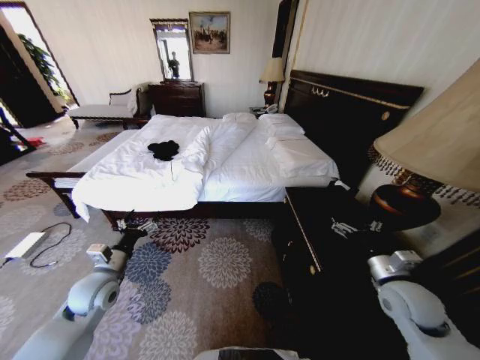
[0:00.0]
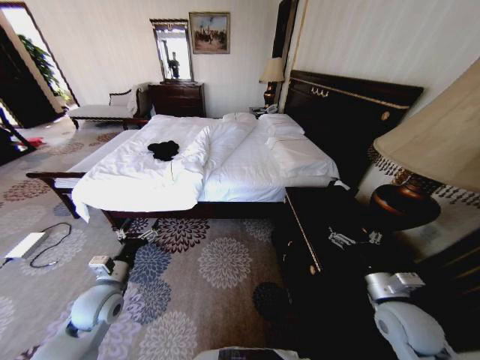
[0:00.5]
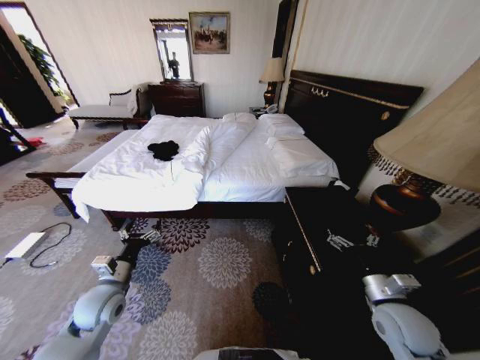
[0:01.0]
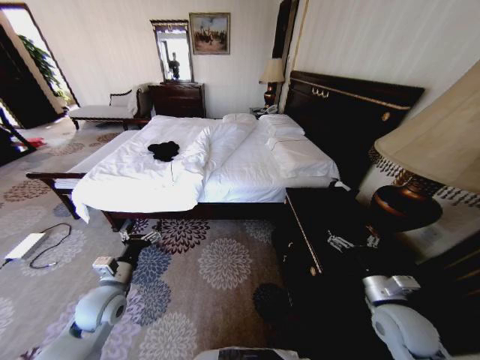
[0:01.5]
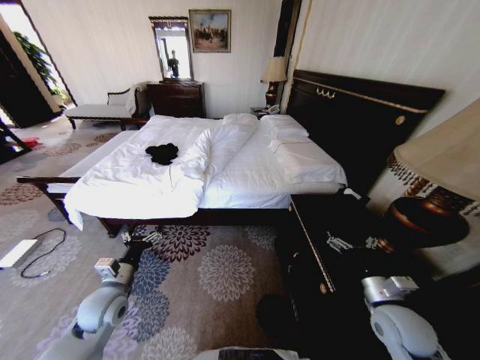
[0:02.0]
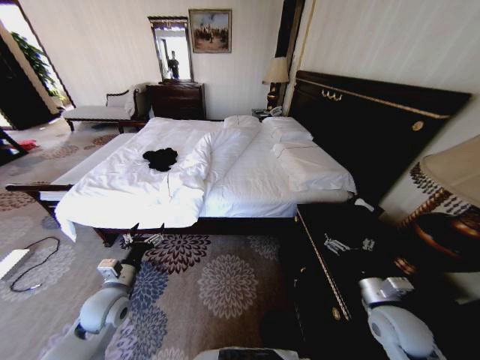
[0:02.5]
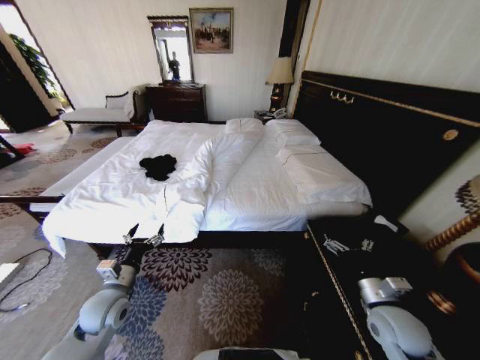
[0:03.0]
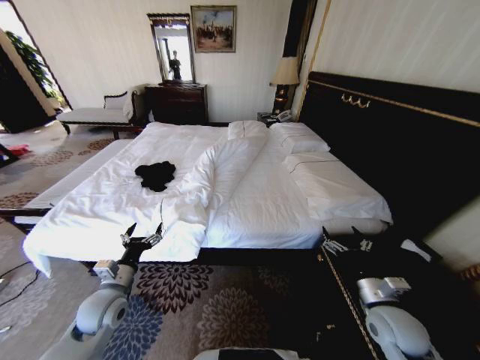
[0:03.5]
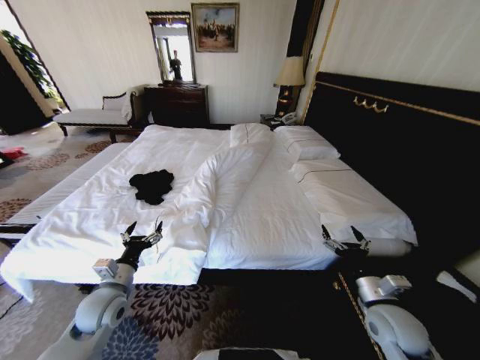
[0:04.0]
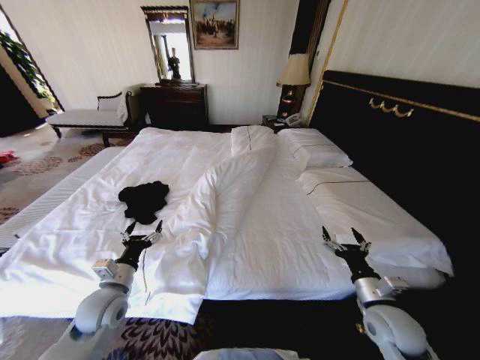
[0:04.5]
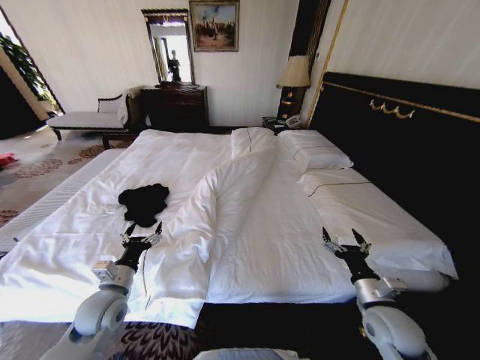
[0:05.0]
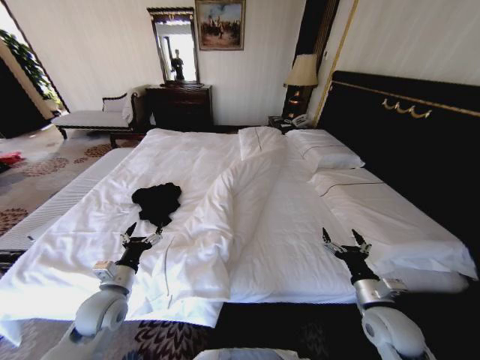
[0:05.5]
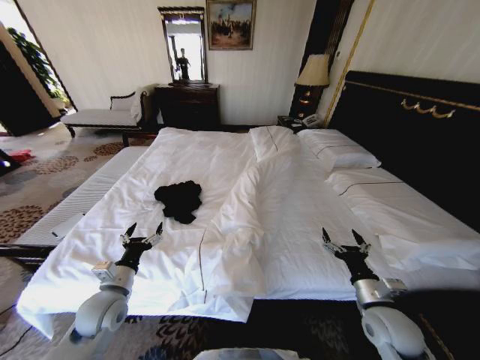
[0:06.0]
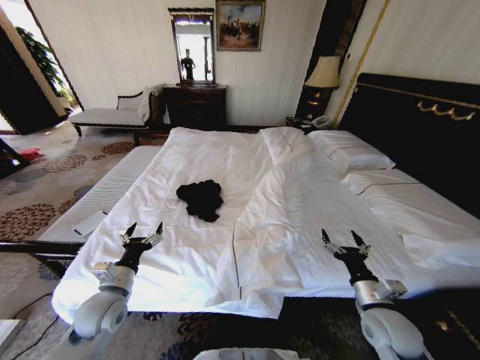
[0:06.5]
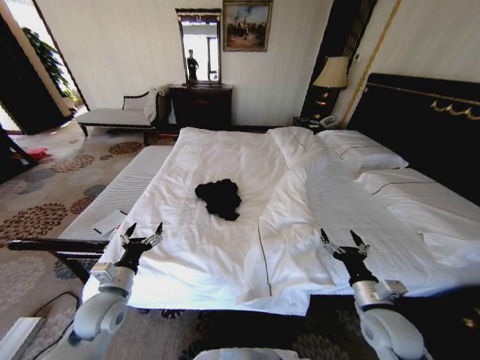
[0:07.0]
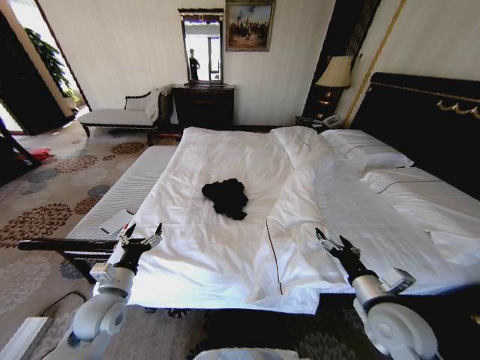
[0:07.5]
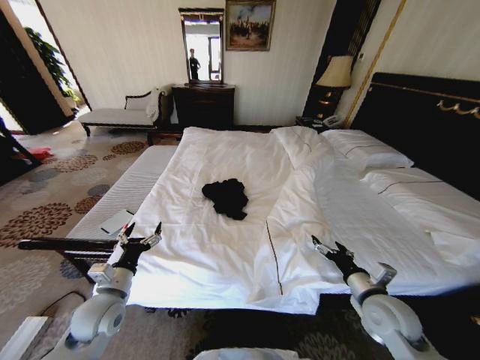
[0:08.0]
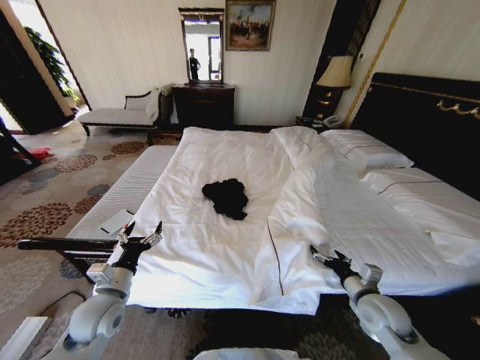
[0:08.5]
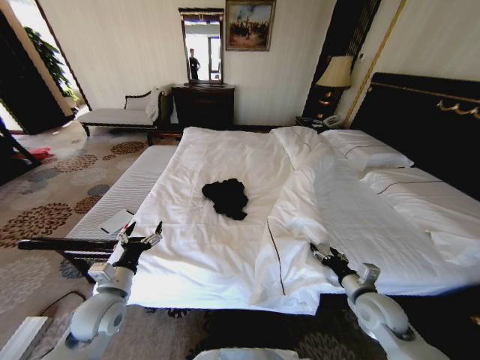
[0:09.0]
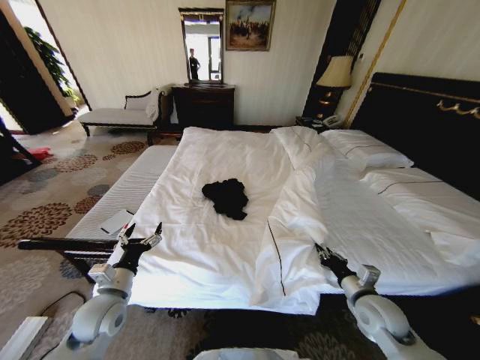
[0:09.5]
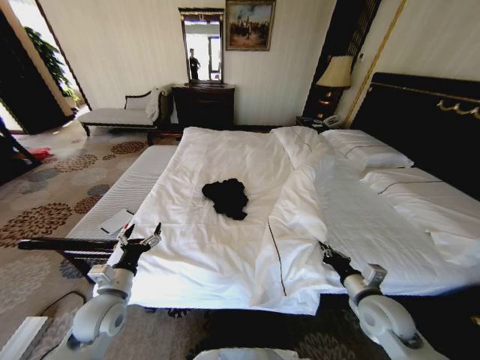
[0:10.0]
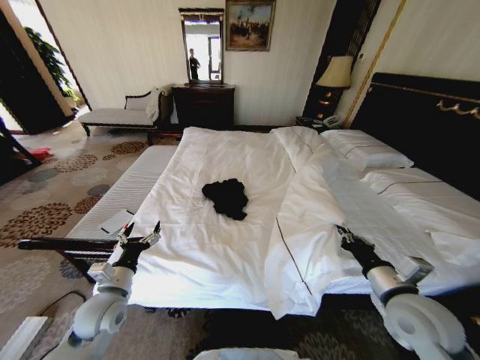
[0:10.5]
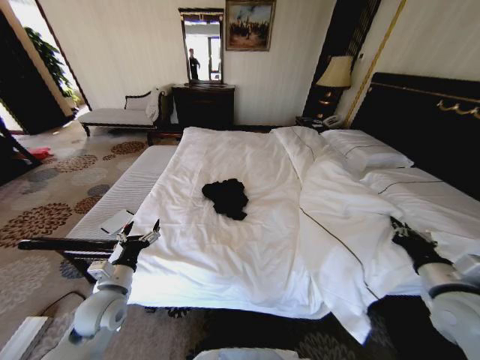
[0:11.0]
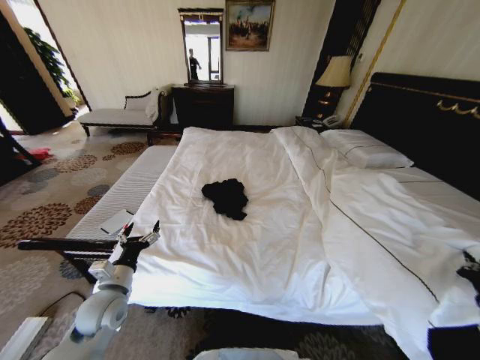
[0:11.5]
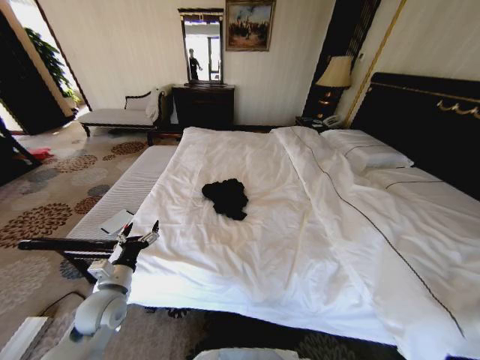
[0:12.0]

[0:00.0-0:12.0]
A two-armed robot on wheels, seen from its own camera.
Task of the whole recording: Fold the clothes on the bed.
0:08.0 to 0:10.0: The right gripper closes its fingers.
0:10.0 to 0:12.0: The right gripper moves to the right and backward, about 30 cm.

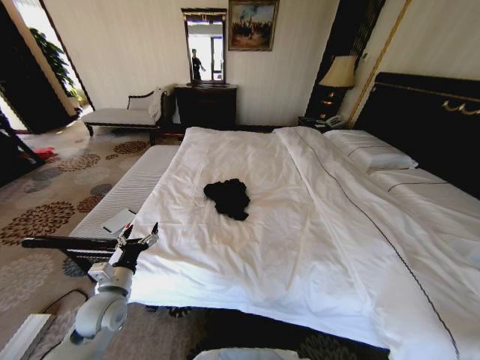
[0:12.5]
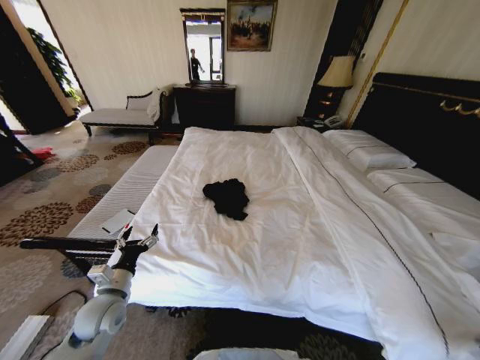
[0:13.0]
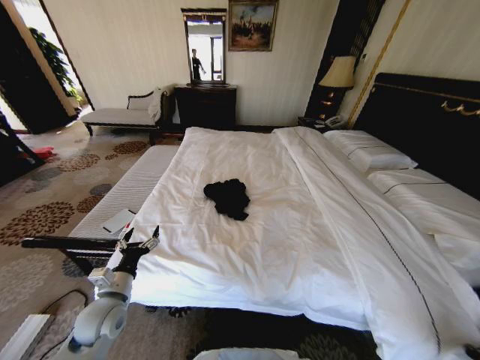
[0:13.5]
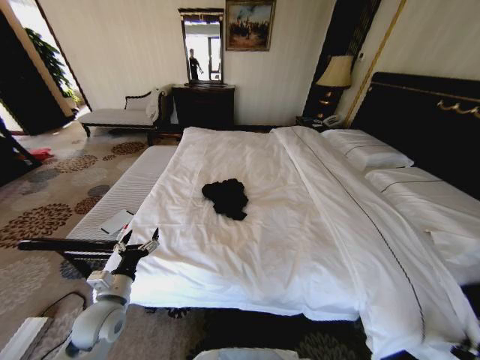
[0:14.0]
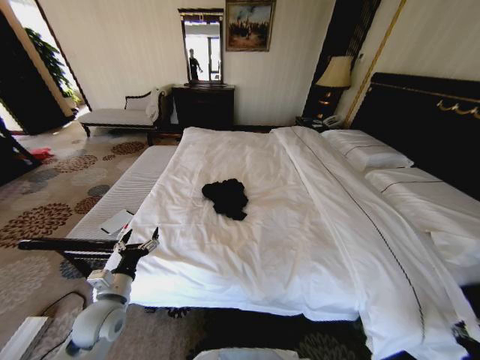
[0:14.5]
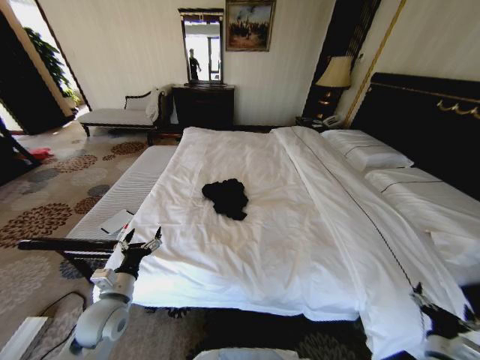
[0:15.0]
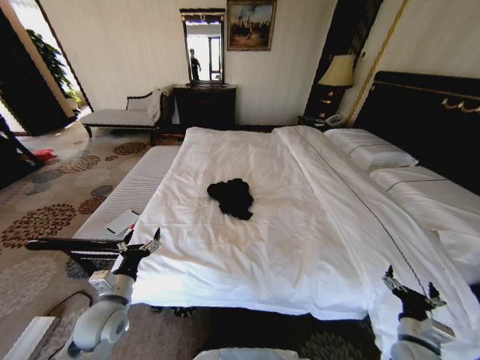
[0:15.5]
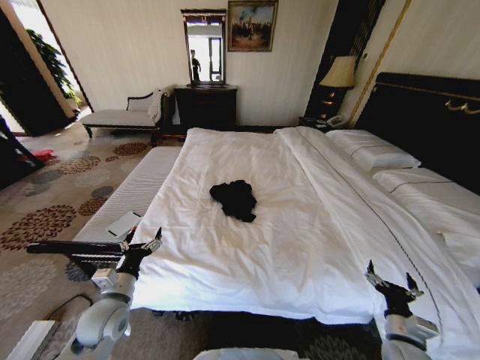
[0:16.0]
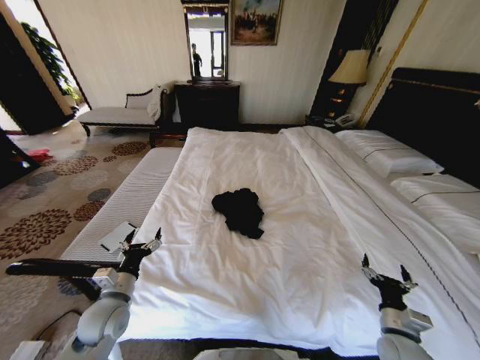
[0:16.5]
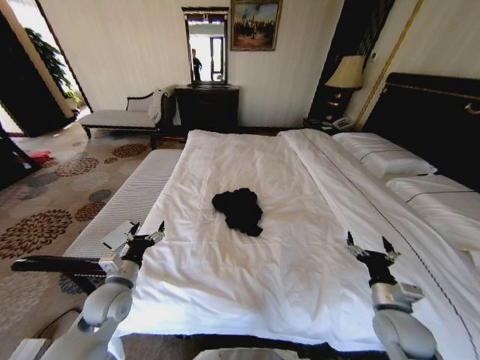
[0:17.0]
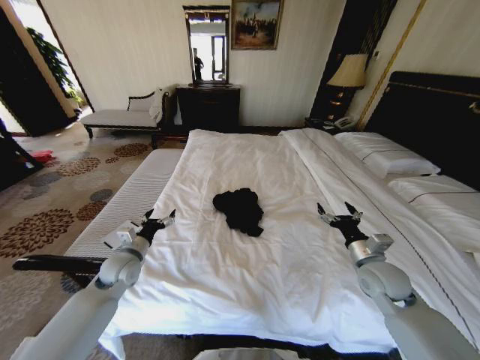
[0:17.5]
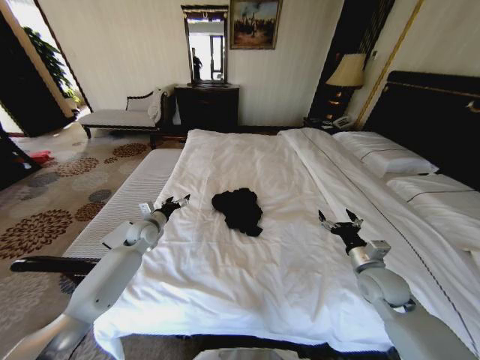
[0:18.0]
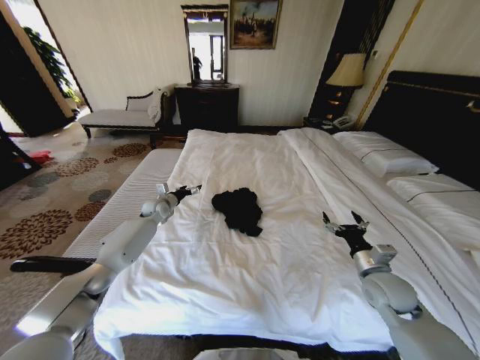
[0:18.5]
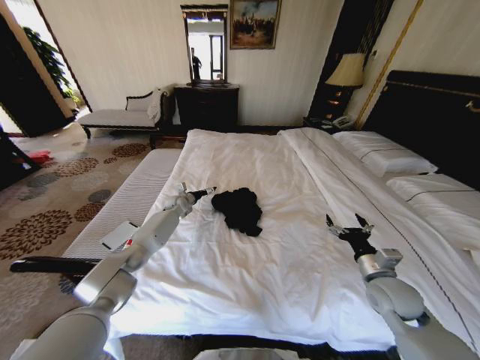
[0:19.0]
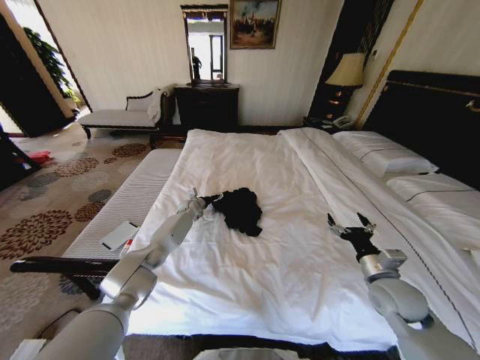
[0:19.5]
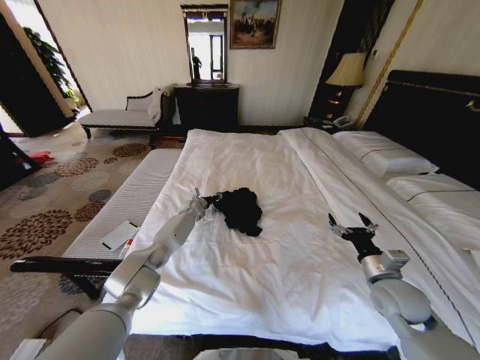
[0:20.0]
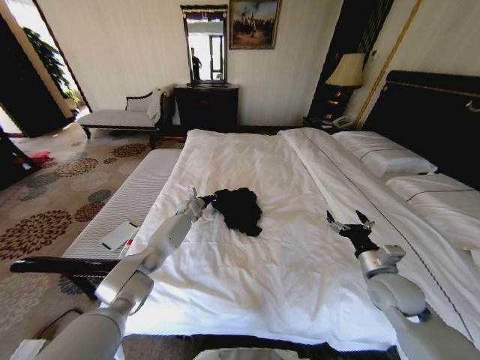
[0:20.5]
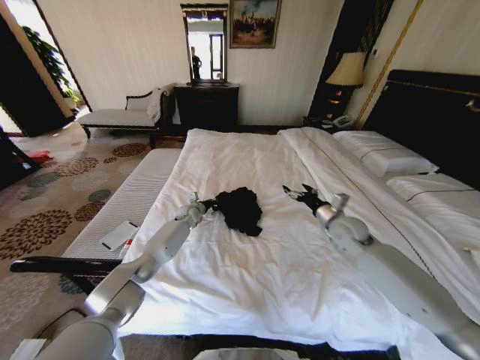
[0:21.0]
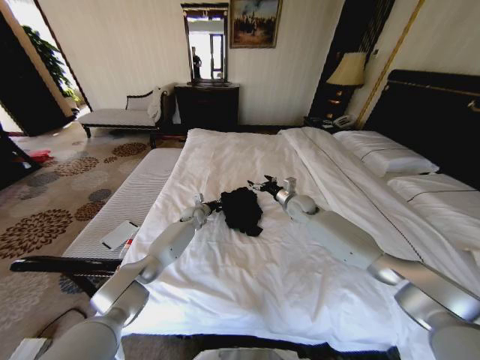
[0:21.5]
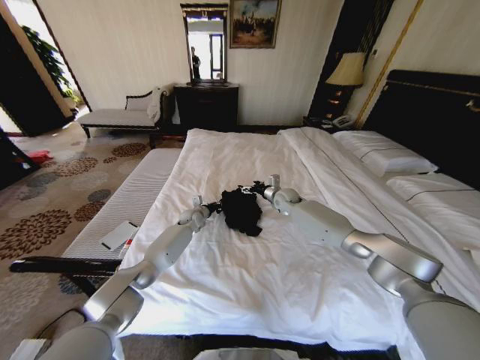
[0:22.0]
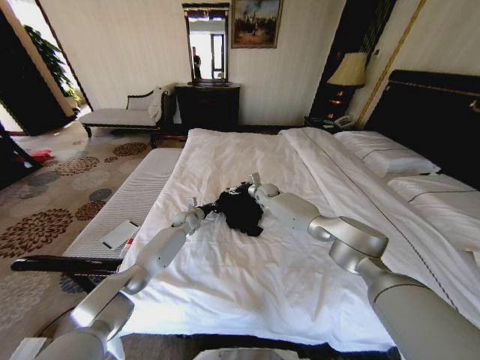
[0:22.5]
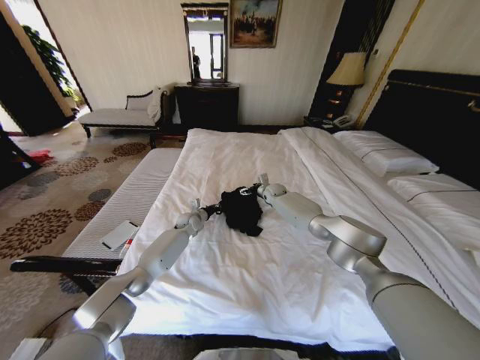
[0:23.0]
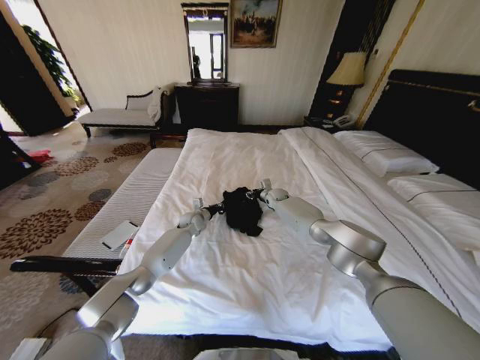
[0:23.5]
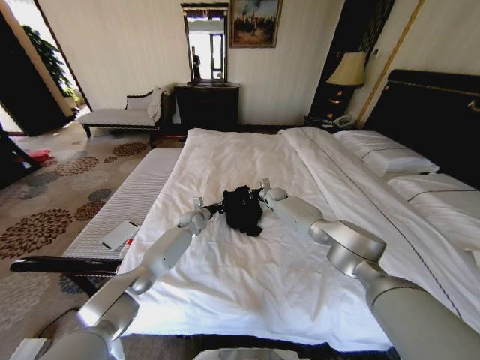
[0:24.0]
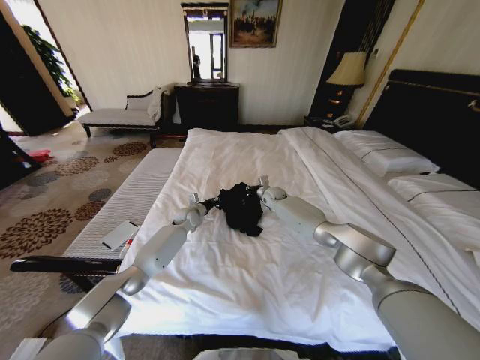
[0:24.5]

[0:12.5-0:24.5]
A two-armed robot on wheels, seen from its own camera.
Task of the whole recording: Fold the clothes on the bed.
0:12.5 to 0:14.5: The right gripper moves downward, about 10 cm, and opens.
0:14.5 to 0:16.5: The right gripper is displaced to the left, forward and upward by some 20 cm.
0:16.5 to 0:18.5: The left gripper is displaced forward by approximately 35 cm. Meanwhile the right gripper travels forward and upward by about 15 cm.
0:18.5 to 0:20.5: The left gripper goes roughly 15 cm to the right, downward and forward, and closes.
0:20.5 to 0:22.5: The right gripper moves forward and to the left, approximately 50 cm. The left gripper moves backward, about 5 cm.
0:22.5 to 0:24.5: The right gripper closes its fingers.

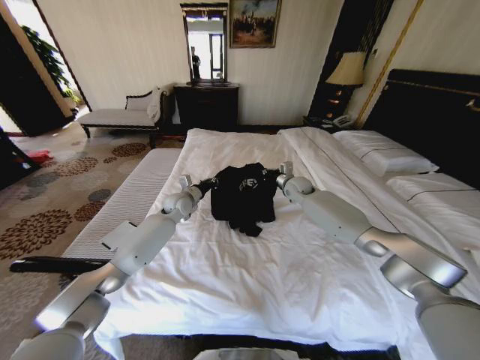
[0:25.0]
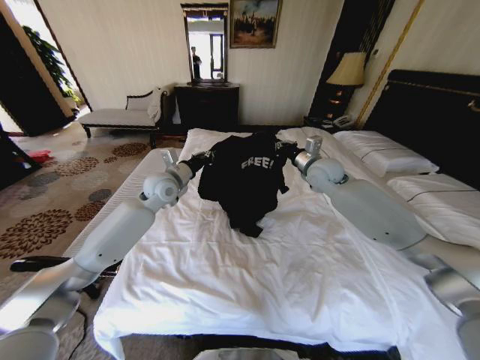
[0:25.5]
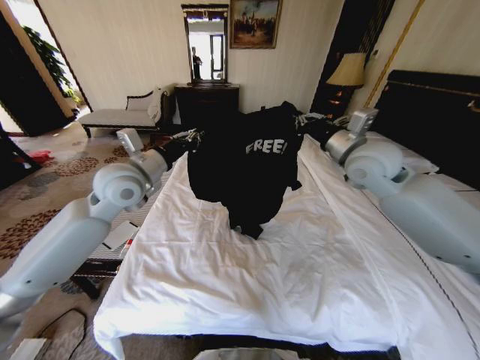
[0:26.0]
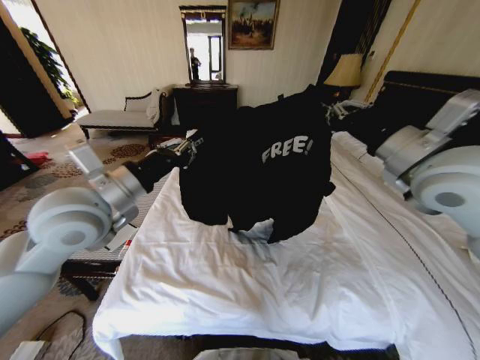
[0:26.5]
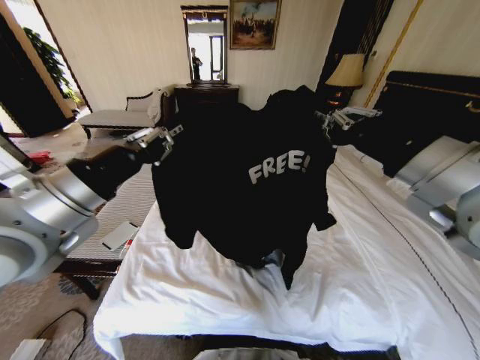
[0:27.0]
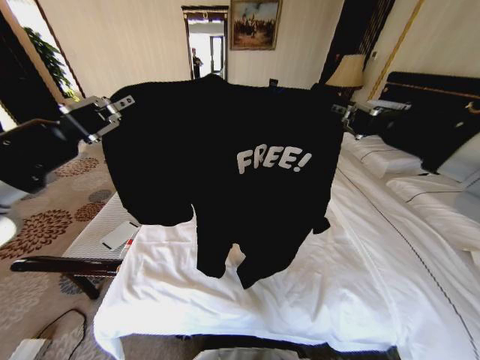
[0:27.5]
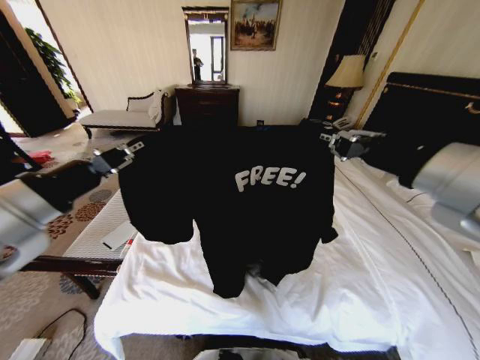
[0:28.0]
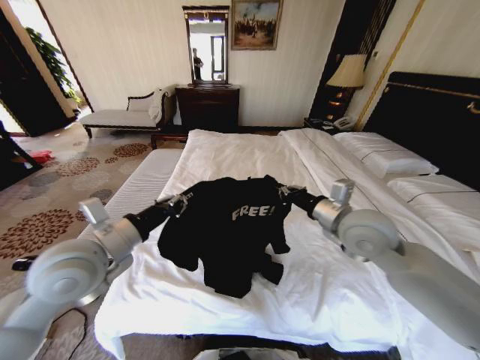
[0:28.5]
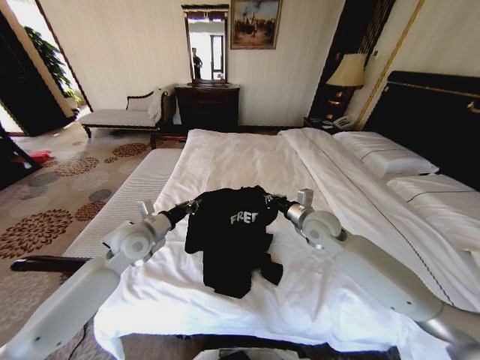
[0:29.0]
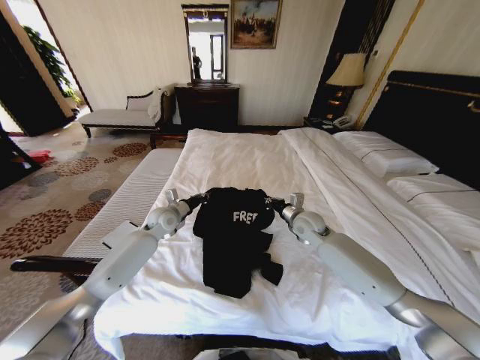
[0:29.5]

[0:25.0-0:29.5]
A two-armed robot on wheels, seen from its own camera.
Task of the whole recording: Fold the clothes on the bed.
0:25.0 to 0:27.0: Both grippers travel together backward and upward, about 40 cm.
0:27.0 to 0:29.5: Both grippers travel together downward and forward, some 40 cm.
